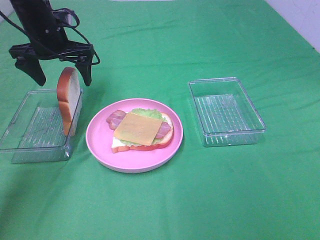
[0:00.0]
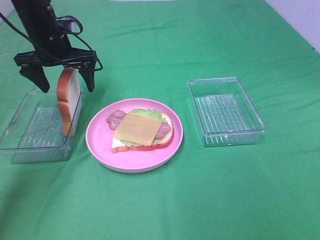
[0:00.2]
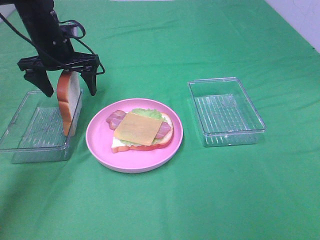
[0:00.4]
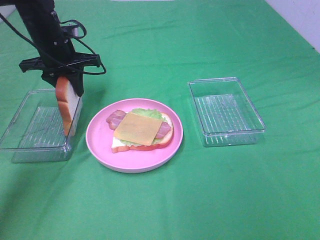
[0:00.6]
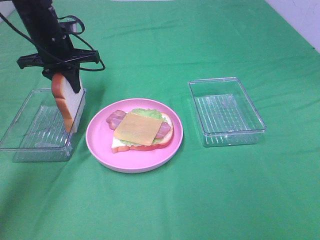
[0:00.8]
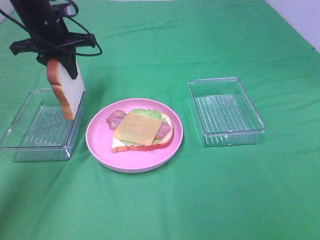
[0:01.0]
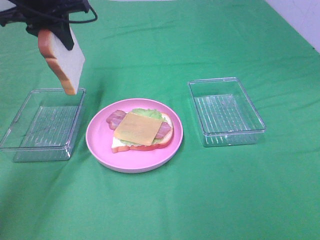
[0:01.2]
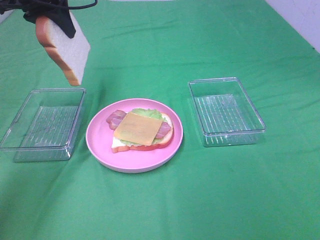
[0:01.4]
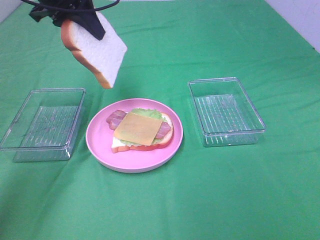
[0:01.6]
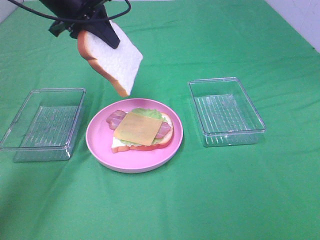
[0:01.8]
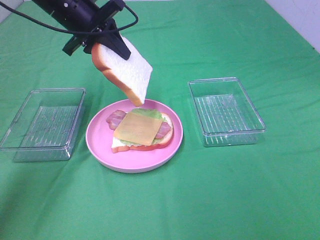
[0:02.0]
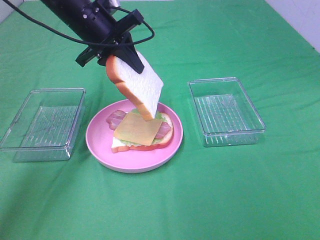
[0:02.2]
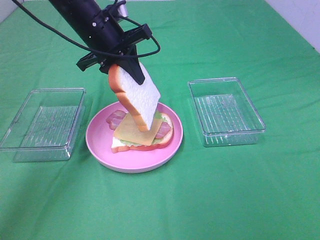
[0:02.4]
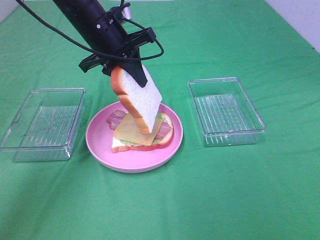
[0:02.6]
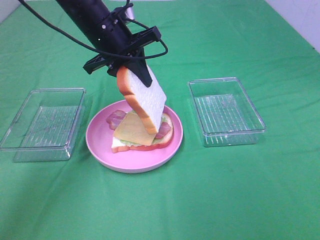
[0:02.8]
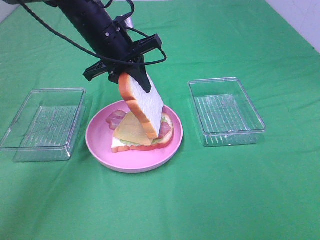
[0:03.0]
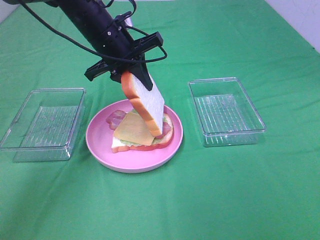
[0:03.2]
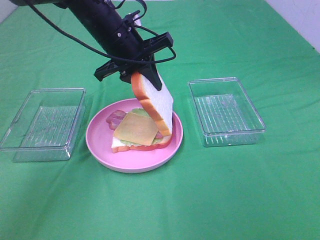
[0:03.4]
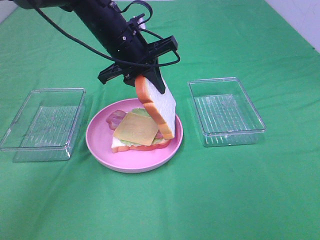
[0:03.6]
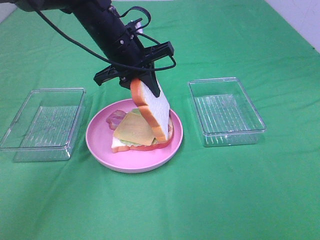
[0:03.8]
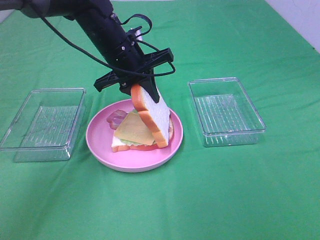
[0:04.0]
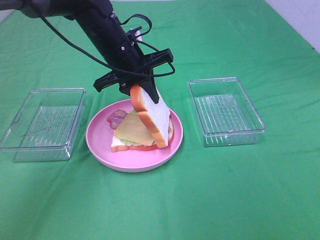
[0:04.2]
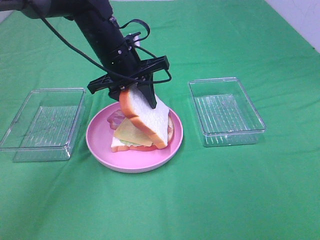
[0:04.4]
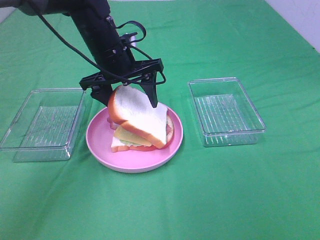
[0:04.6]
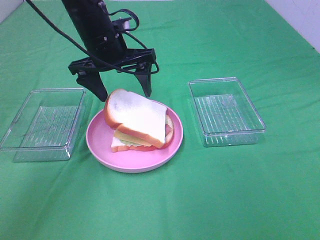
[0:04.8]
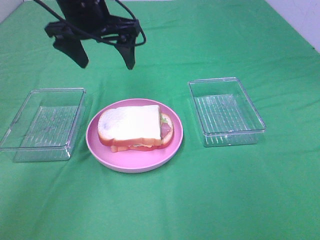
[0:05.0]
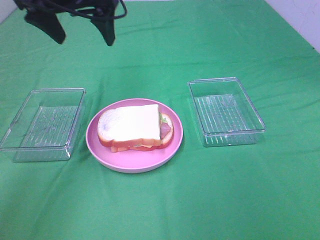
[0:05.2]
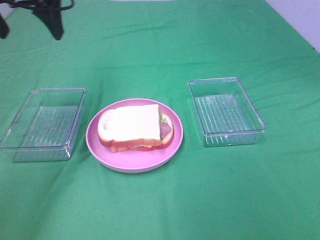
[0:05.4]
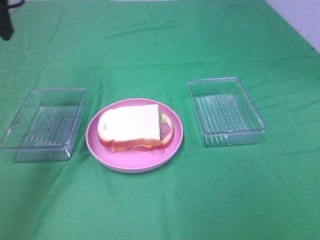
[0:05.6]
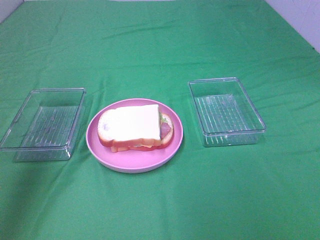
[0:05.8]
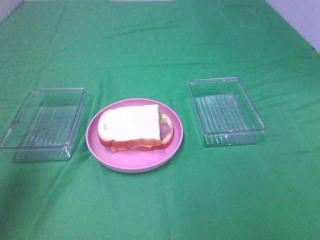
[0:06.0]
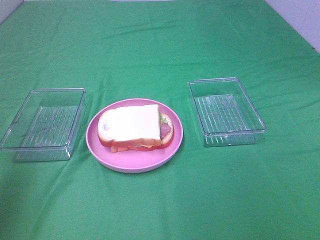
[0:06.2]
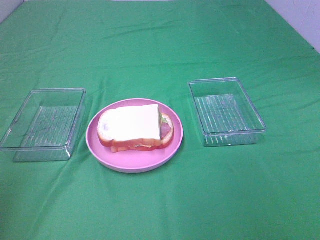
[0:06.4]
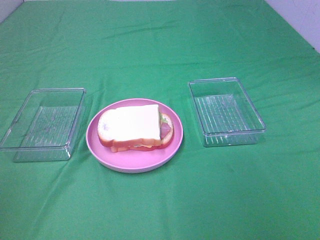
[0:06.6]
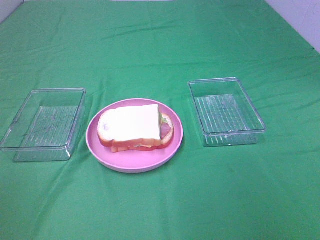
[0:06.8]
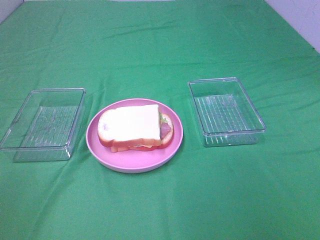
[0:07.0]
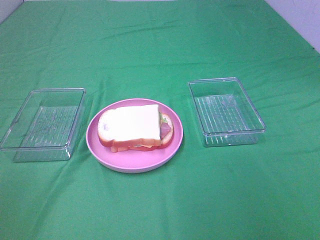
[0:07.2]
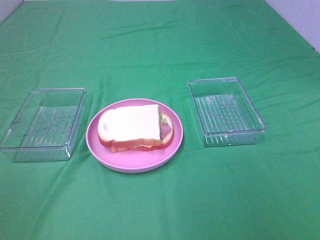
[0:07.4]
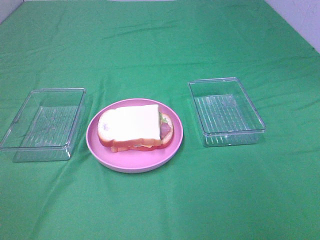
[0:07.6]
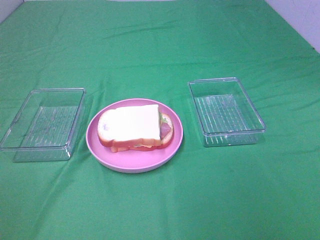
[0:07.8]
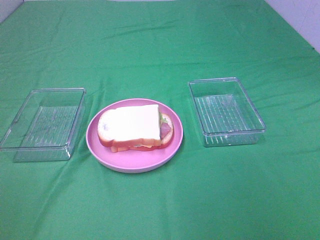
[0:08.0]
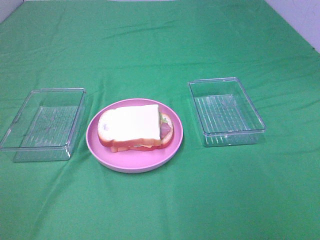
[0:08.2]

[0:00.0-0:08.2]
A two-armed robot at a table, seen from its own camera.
Task of the whole recording: Make sandwiches.
0.0 to 1.6 s: The left gripper heads upward, covering roughly 10 cm, and closes up.
1.6 to 3.2 s: The left gripper goes roughly 15 cm downward and to the right.
3.2 to 5.0 s: The left gripper heads upward, covering about 10 cm, and opens up.
5.0 to 6.6 s: The left gripper is displaced backward and to the left by approximately 40 cm.

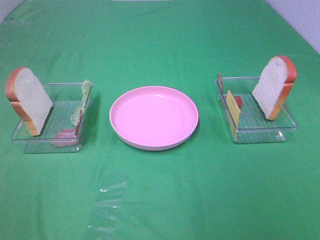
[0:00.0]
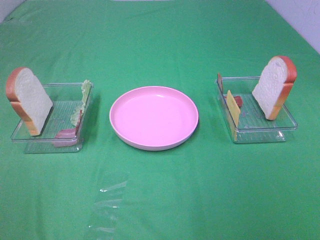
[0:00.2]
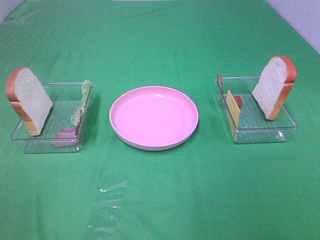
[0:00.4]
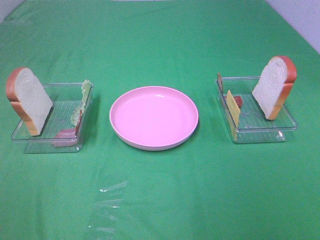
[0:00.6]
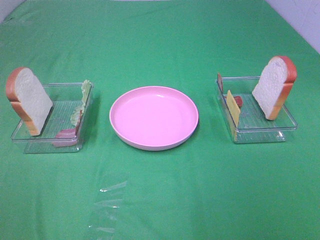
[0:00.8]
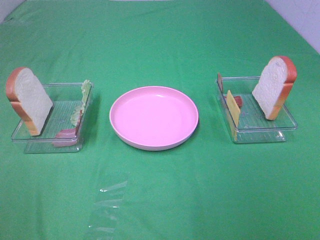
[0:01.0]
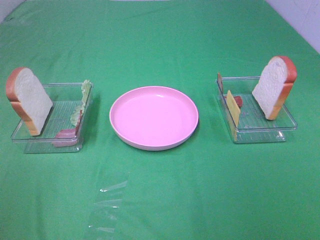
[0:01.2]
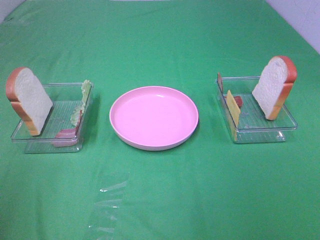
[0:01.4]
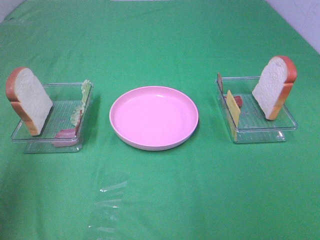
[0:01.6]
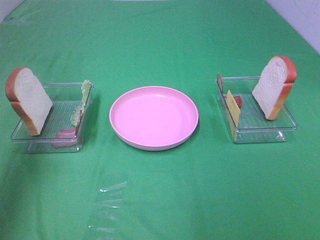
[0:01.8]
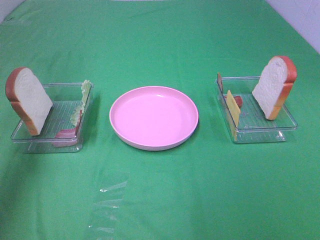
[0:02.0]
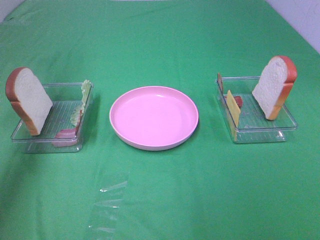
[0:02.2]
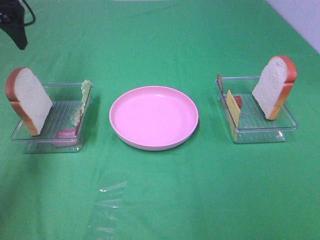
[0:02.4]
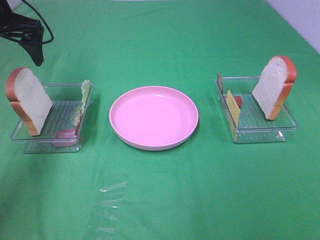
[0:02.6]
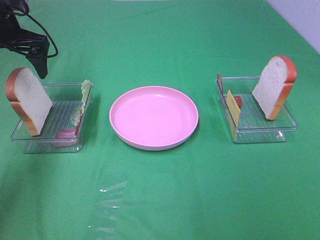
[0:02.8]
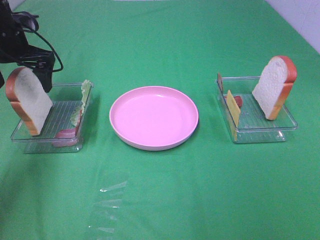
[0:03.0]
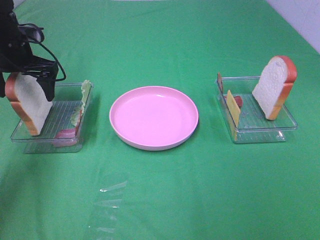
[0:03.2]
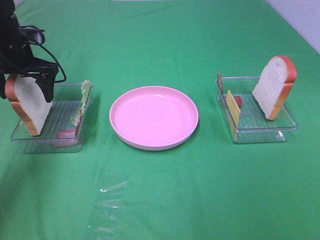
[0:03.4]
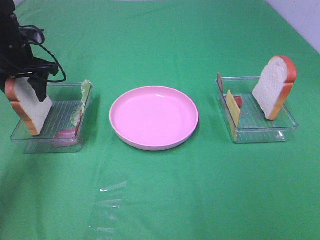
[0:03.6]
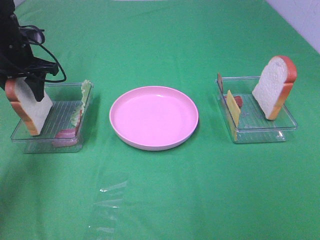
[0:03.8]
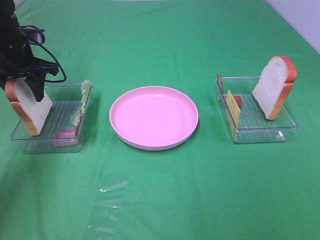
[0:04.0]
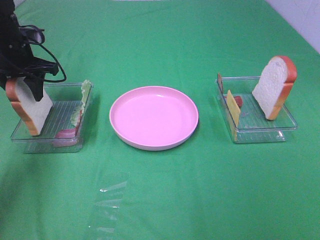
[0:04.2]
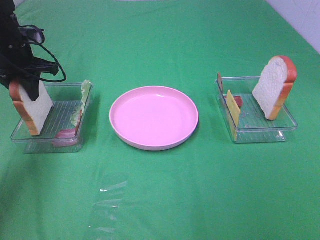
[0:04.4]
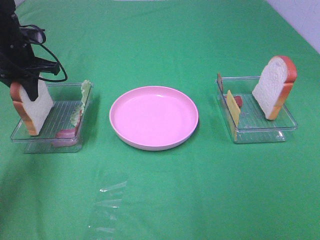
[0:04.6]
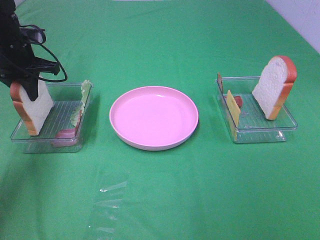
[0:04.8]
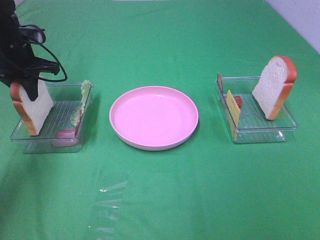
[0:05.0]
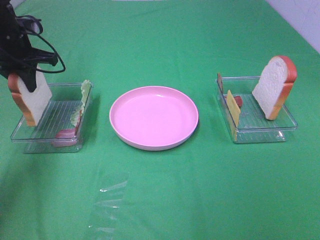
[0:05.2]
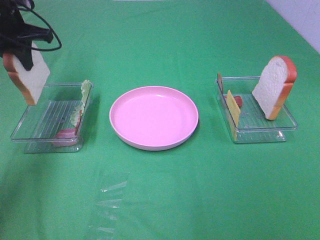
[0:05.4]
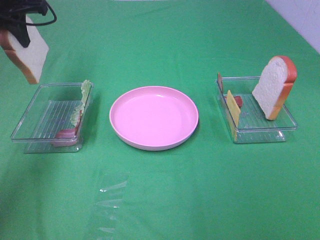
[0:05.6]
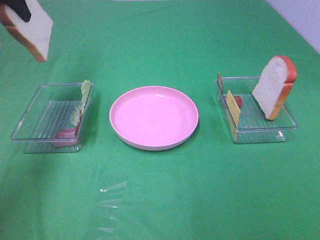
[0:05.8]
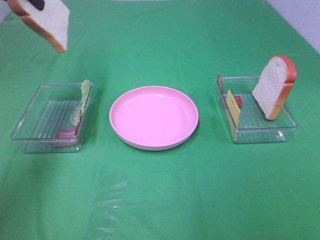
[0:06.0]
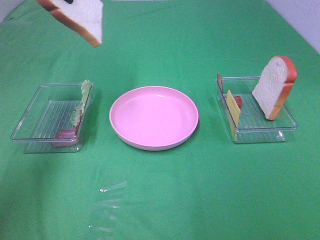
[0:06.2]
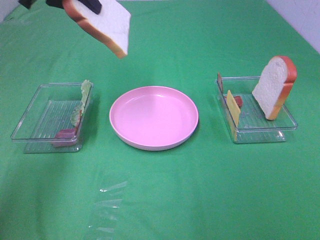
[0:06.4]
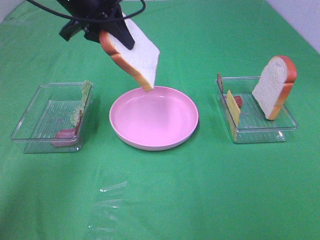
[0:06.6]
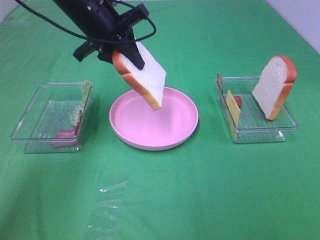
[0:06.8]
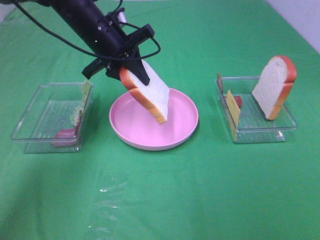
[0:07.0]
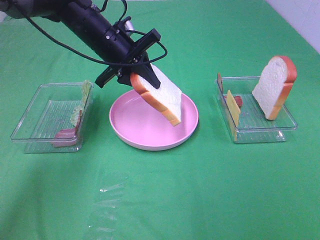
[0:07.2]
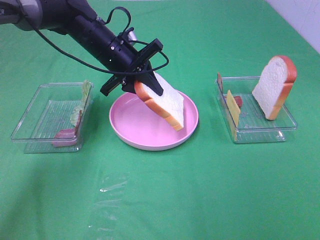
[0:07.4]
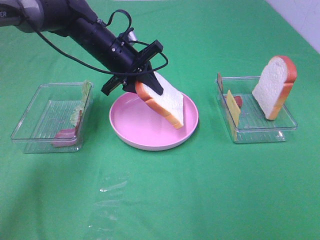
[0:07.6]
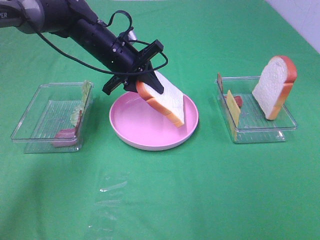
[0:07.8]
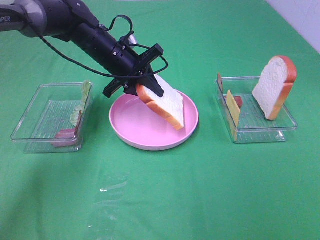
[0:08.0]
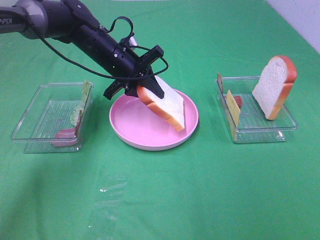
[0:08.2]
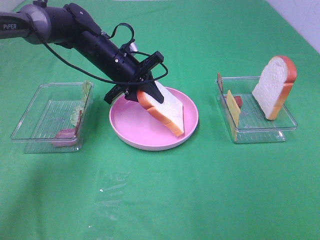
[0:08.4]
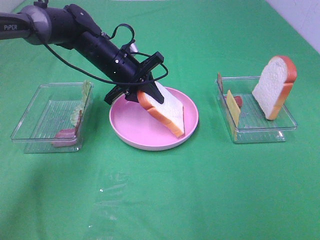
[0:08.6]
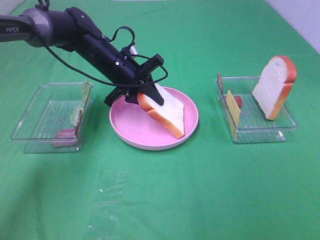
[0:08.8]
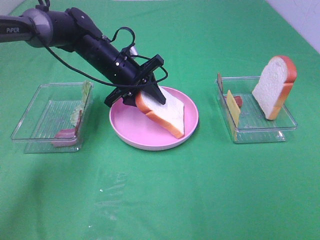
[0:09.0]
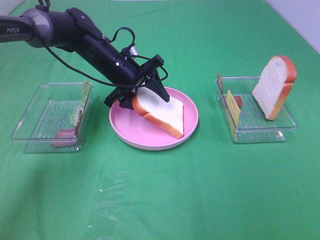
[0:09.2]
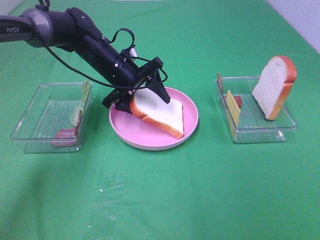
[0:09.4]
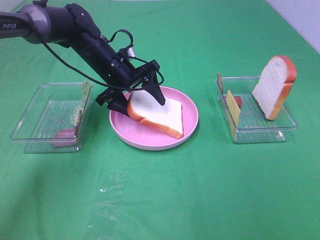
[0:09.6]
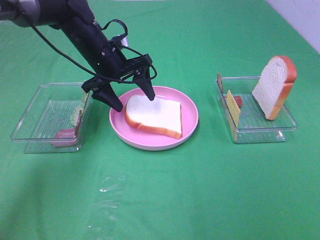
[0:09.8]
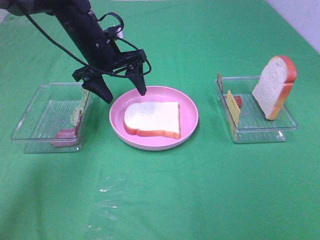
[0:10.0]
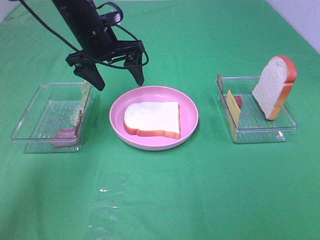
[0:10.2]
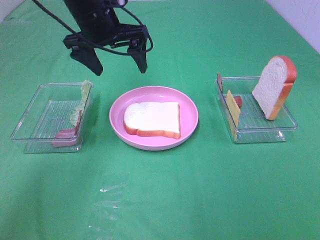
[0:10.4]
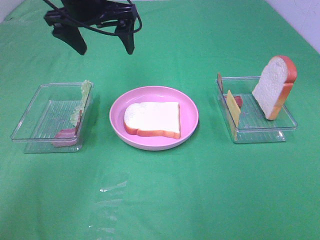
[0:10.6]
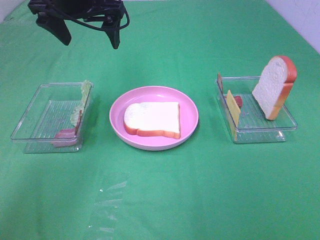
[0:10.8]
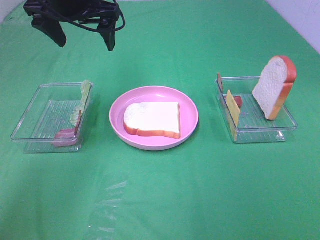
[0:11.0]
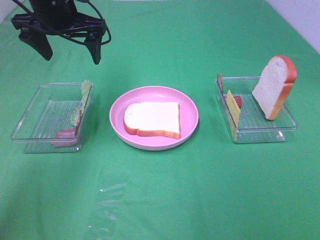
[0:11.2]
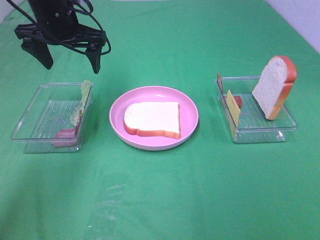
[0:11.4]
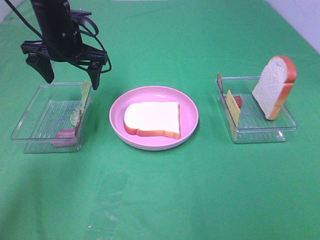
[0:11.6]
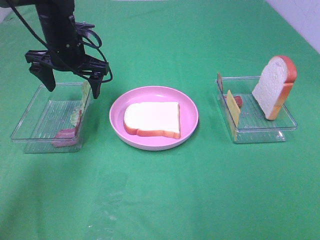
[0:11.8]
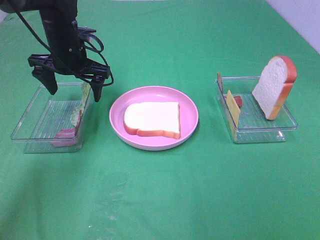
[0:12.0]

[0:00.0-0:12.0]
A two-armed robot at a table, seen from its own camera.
Task of the whole recording: Make sandwiches.
Step, 0.0 to 4.6 s: Left hand:grab the bread slice.
Step, 4.8 to 9.8 s: Left hand:place the bread slice on the plate.
0.0 to 1.6 s: The left gripper is displaced forward and upward by approximately 20 cm.
1.6 to 3.0 s: The left gripper is displaced forward and downward by approximately 30 cm.
3.0 to 4.4 s: The left gripper closes its fingers.
4.4 to 6.0 s: The left gripper moves upward, some 15 cm.
6.0 to 7.6 s: The left gripper shifts roughly 25 cm downward and to the right.
7.6 to 9.0 s: The grippers make only small movements.
9.0 to 10.4 s: The left gripper travels upward by some 15 cm, and opens up.
10.4 to 12.0 s: The left gripper travels downward and to the left by roughly 10 cm.

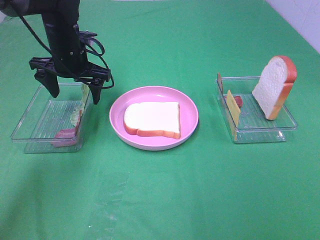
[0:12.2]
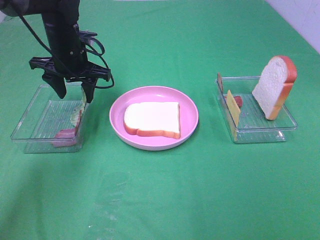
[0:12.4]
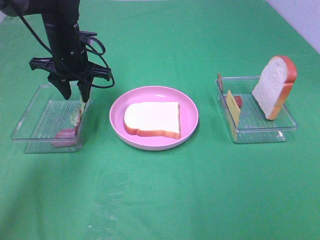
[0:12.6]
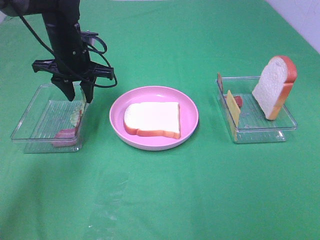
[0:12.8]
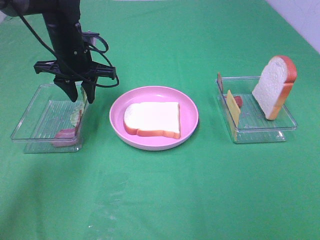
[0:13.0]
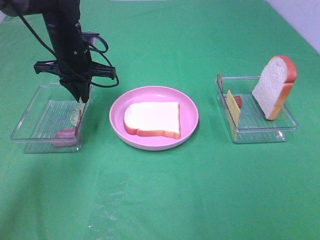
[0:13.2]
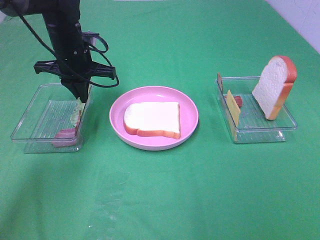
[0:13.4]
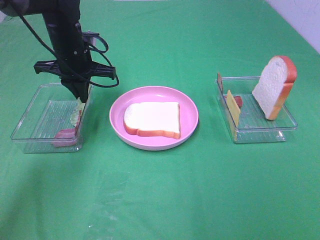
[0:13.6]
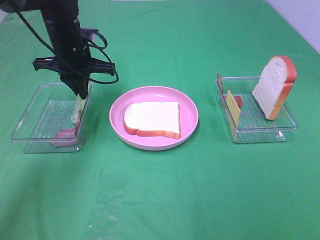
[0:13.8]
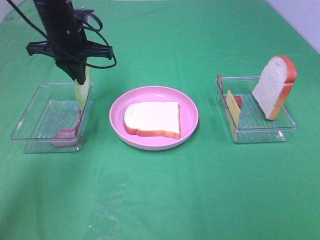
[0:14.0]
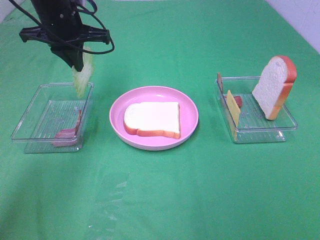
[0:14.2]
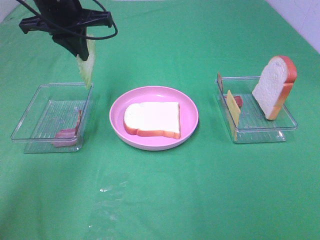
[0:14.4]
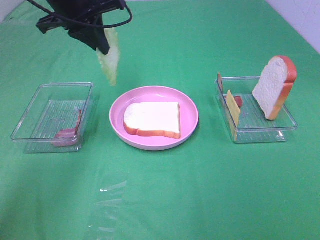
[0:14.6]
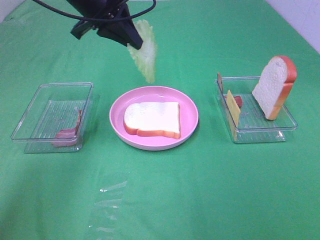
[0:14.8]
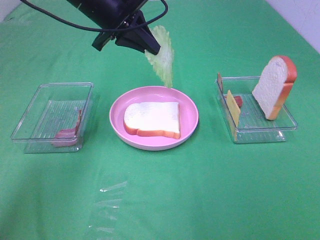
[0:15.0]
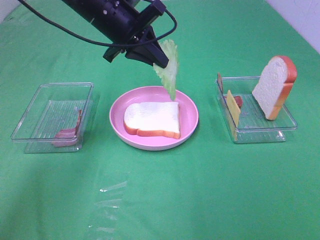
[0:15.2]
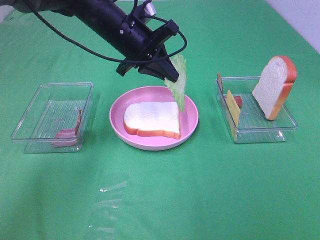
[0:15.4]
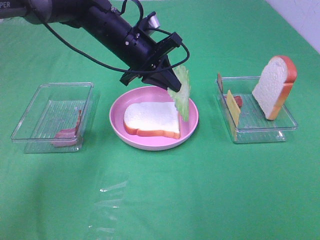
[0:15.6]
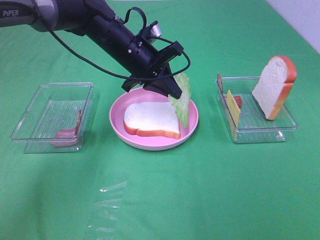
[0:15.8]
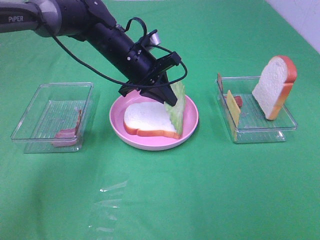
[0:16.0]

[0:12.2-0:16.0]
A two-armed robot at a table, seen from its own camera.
Task of the whole recording: Make sandwiches.
12.2 to 13.4 s: The left gripper closes.
13.4 to 14.8 s: The left gripper goes approximately 10 cm upward.
14.8 to 16.0 s: The left gripper is displaced downward and to the right by roughly 15 cm.
